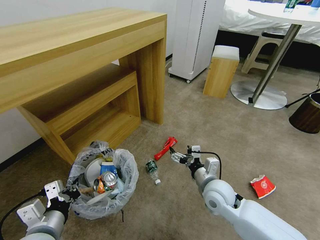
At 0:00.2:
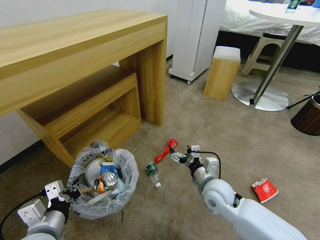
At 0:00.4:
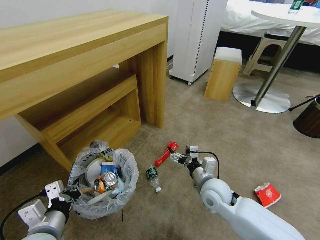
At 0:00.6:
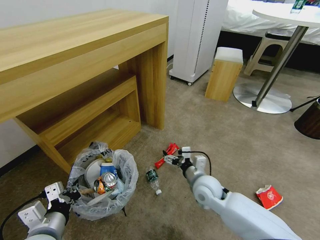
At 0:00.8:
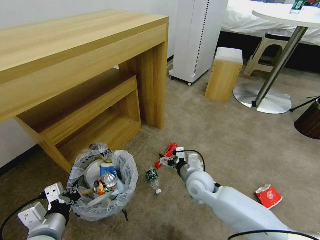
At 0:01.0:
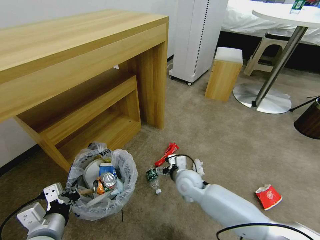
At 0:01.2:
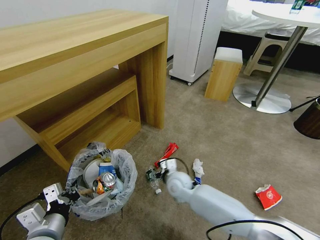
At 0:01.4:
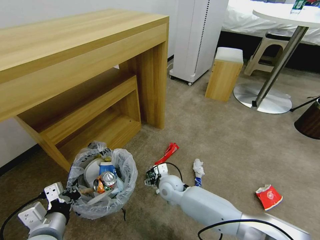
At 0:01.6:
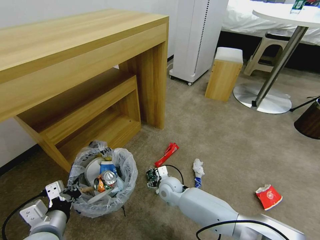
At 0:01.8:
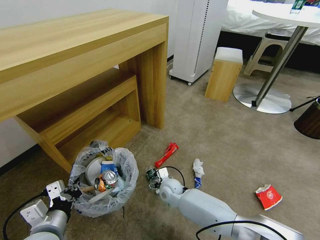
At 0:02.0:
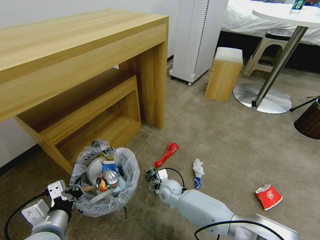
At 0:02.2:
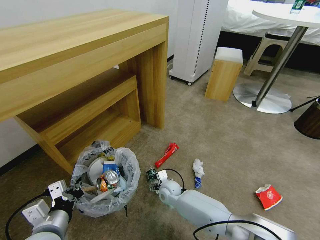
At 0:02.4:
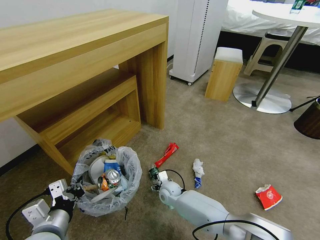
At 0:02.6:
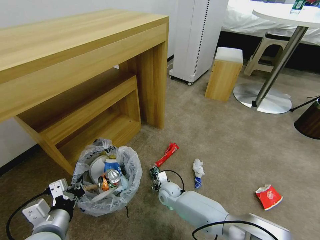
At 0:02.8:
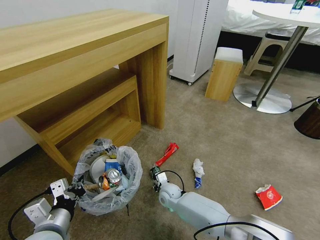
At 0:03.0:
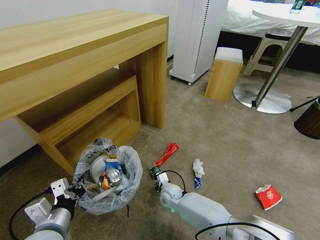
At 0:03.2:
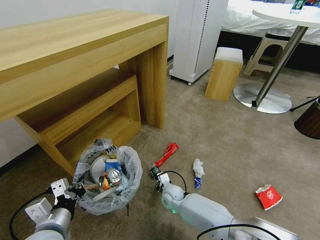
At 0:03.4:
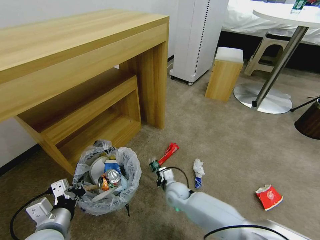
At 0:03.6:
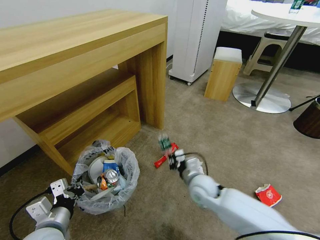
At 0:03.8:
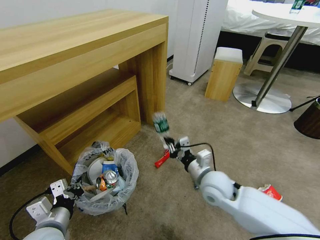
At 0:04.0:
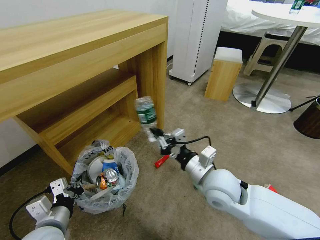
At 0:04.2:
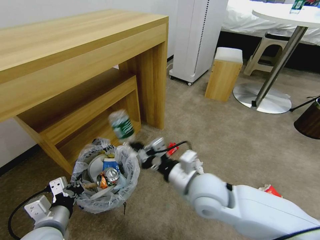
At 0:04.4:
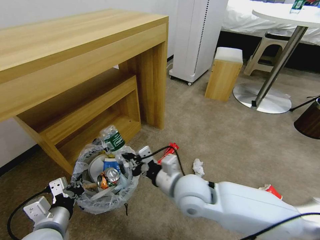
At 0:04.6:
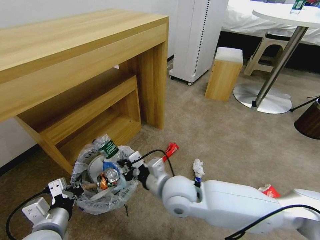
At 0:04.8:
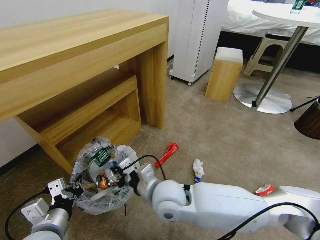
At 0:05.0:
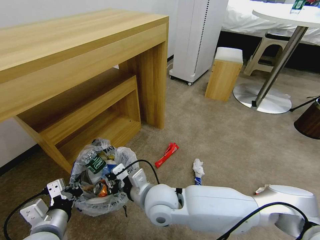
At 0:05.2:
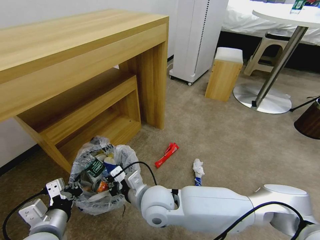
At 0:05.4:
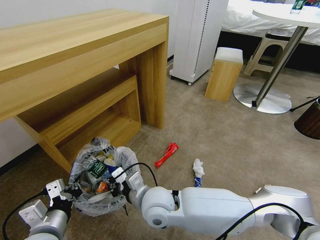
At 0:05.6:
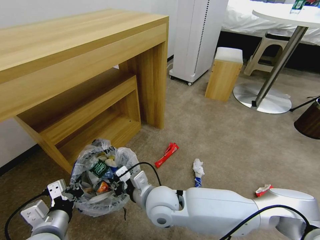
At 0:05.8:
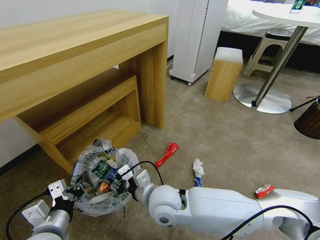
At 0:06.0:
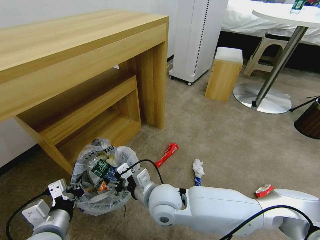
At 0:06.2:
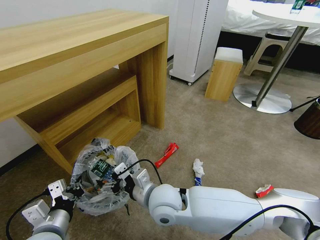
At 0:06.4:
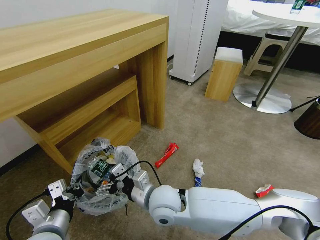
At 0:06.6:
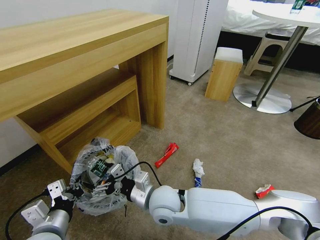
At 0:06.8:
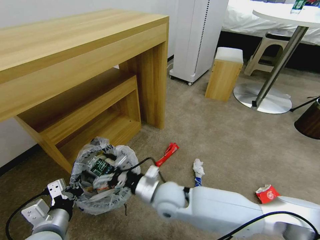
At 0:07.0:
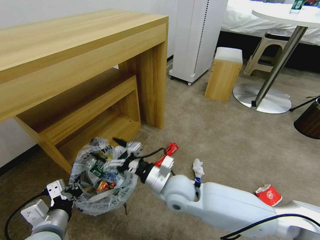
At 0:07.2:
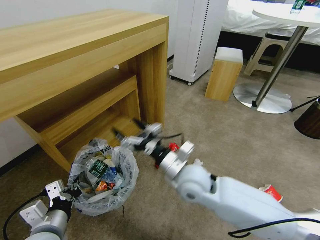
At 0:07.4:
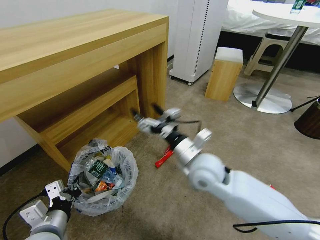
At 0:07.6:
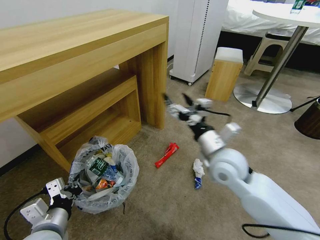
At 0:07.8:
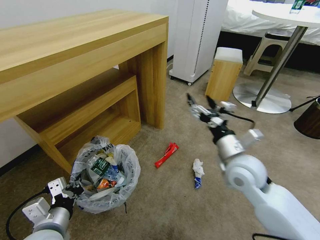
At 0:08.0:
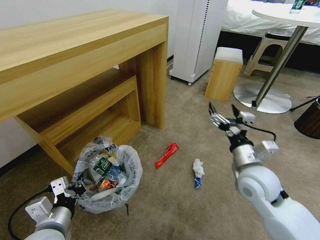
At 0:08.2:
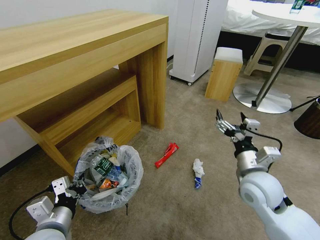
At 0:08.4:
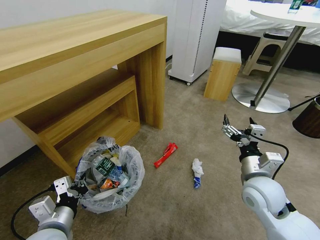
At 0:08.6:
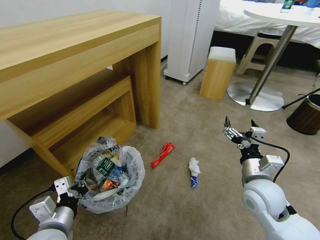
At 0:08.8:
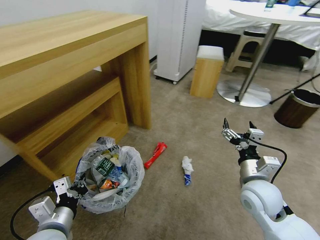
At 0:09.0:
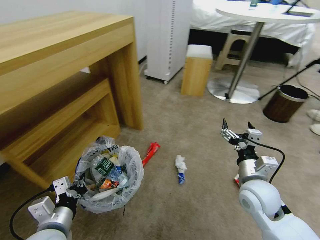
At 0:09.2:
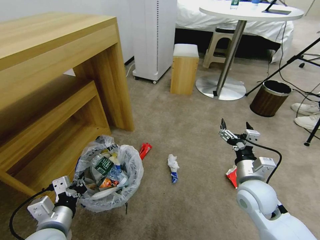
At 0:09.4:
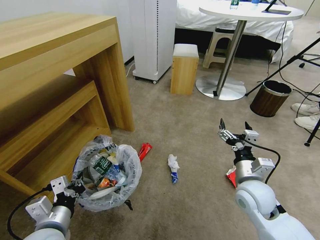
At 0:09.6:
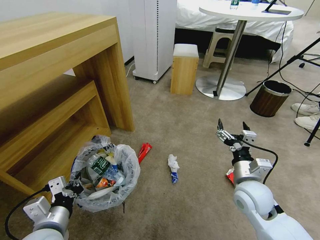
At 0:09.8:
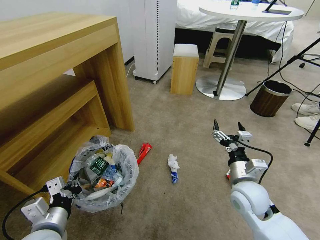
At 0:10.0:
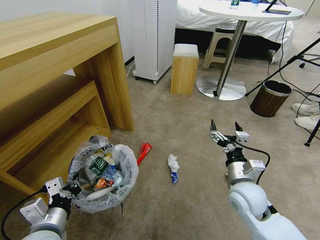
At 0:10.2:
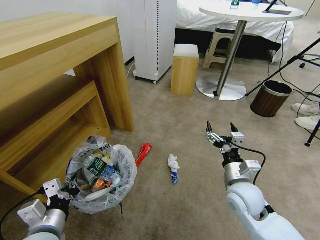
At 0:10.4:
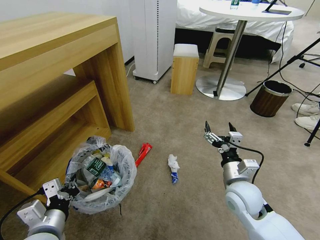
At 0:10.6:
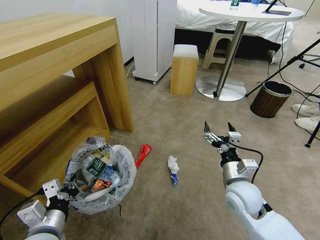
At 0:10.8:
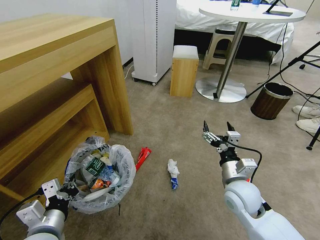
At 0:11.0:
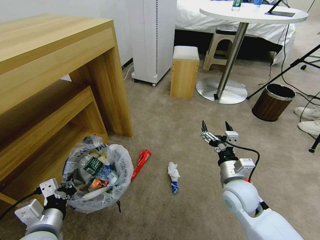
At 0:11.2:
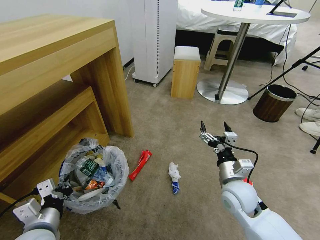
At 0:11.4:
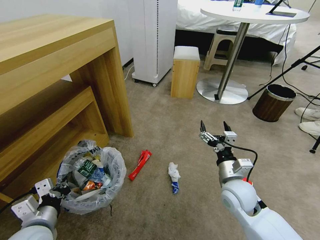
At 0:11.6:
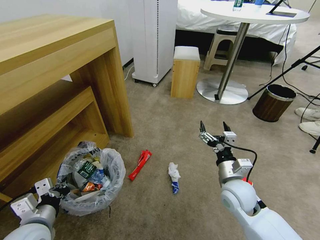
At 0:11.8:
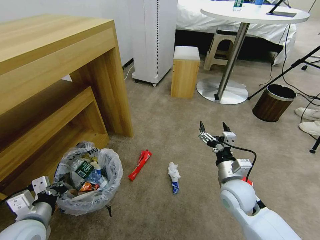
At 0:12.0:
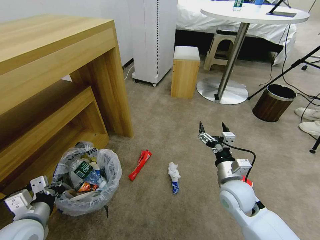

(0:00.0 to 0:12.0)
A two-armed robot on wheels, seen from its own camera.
Task of the whole recording: Pick up the trash bin and place the garbage on the floor into it.
0:00.0 - 0:01.6: The right gripper heads to the left, downward and forward, covering about 20 cm.
0:01.6 - 0:03.0: The right gripper travels downward by about 5 cm, and closes up.
0:03.0 - 0:04.4: The right gripper is displaced upward by approximately 25 cm.
0:04.4 - 0:06.0: The right gripper goes approximately 10 cm to the left, and opens.
0:06.0 - 0:07.6: The right gripper shifts roughly 20 cm to the right, upward and forward.
0:07.6 - 0:09.0: The right gripper goes roughly 15 cm to the right, downward and backward.
0:10.4 - 0:12.0: The left gripper heads to the left, covering approximately 5 cm.

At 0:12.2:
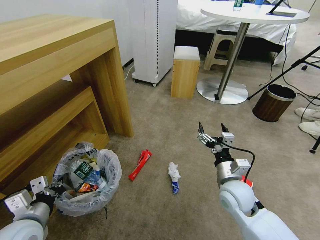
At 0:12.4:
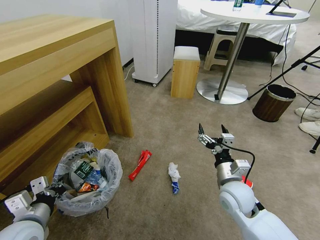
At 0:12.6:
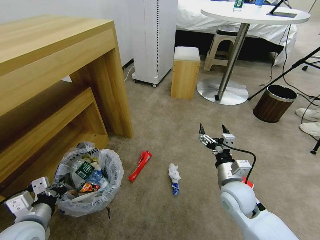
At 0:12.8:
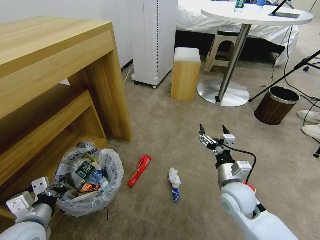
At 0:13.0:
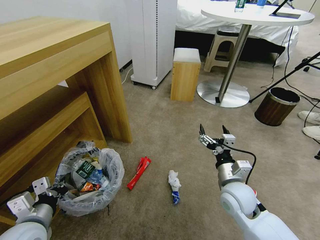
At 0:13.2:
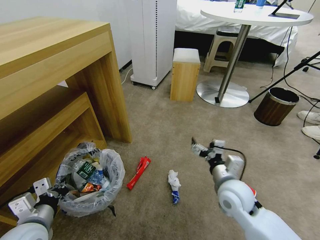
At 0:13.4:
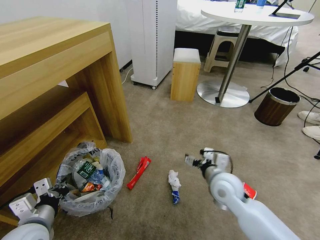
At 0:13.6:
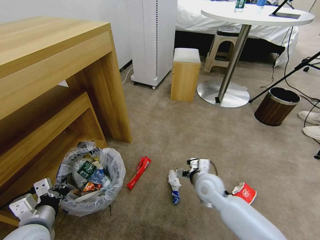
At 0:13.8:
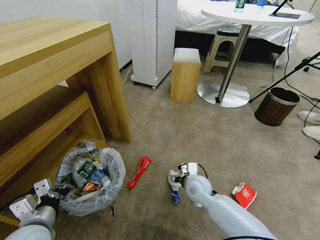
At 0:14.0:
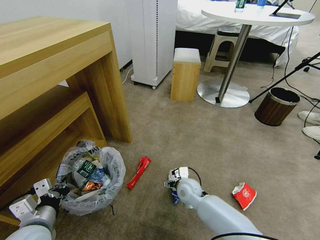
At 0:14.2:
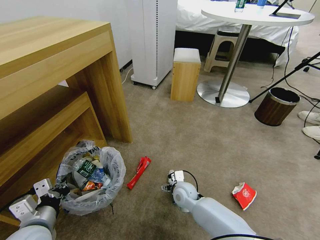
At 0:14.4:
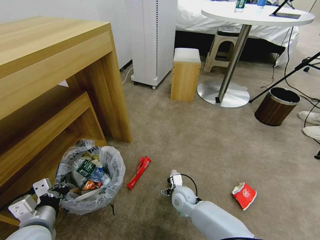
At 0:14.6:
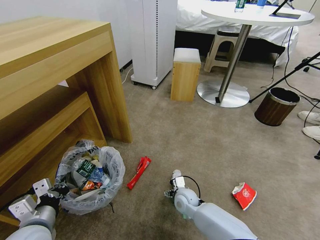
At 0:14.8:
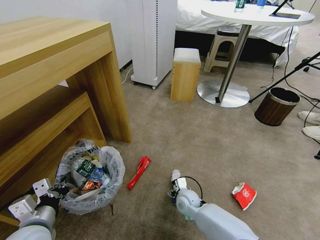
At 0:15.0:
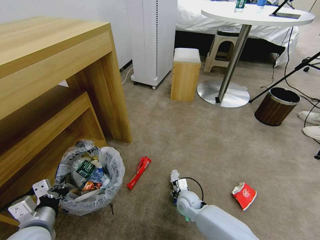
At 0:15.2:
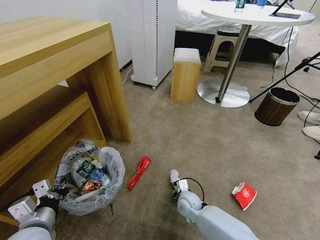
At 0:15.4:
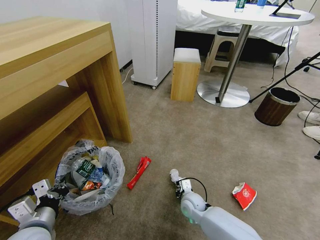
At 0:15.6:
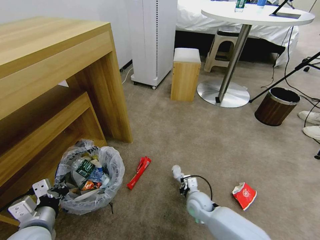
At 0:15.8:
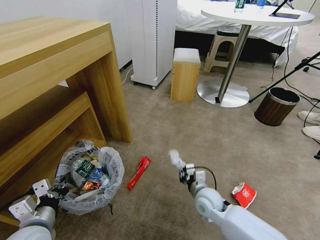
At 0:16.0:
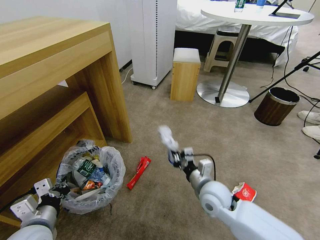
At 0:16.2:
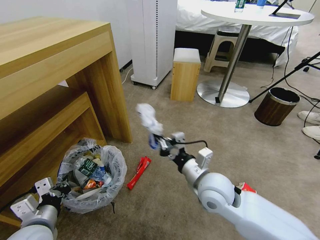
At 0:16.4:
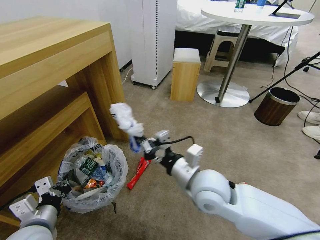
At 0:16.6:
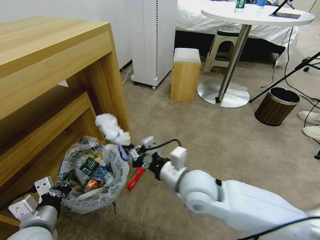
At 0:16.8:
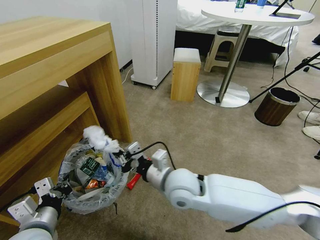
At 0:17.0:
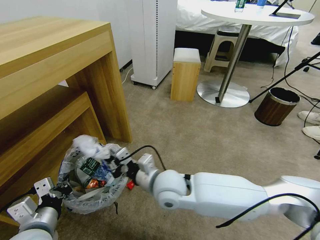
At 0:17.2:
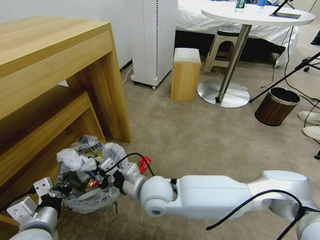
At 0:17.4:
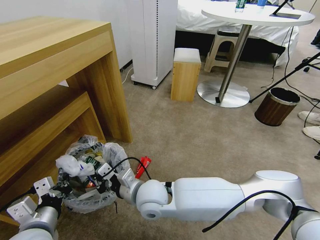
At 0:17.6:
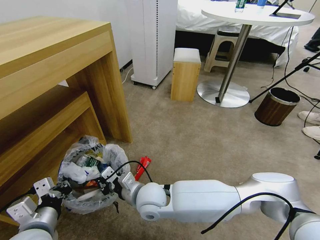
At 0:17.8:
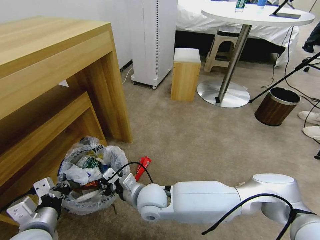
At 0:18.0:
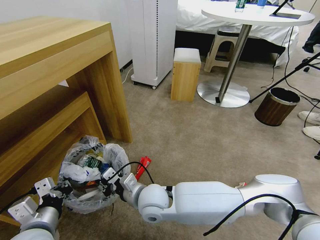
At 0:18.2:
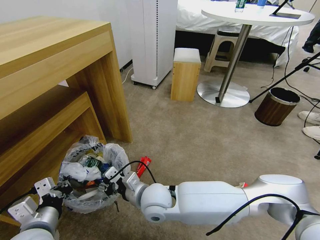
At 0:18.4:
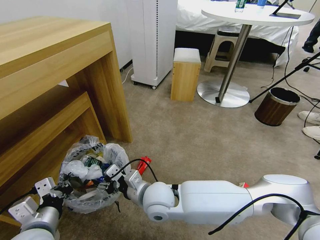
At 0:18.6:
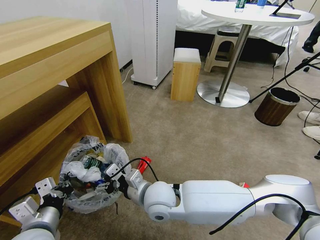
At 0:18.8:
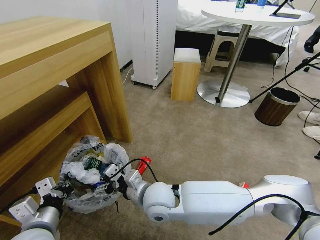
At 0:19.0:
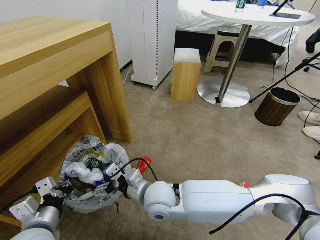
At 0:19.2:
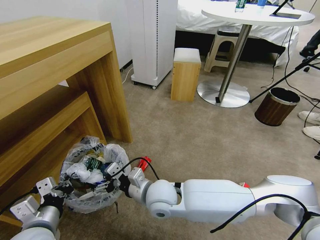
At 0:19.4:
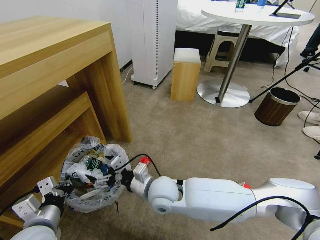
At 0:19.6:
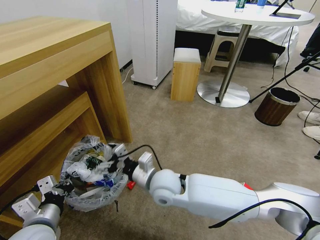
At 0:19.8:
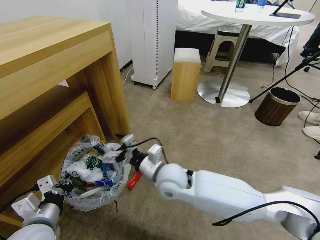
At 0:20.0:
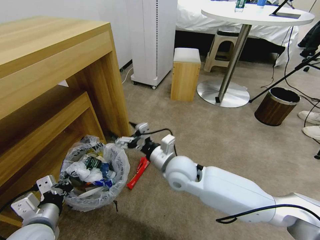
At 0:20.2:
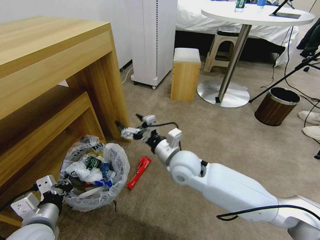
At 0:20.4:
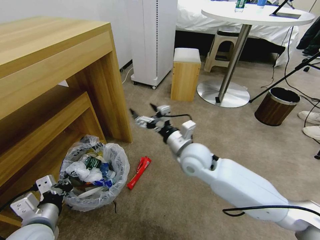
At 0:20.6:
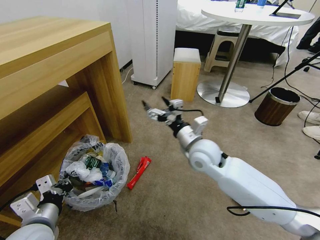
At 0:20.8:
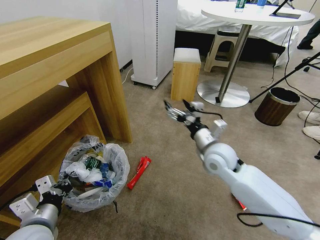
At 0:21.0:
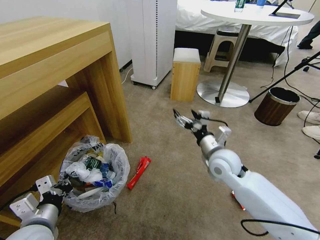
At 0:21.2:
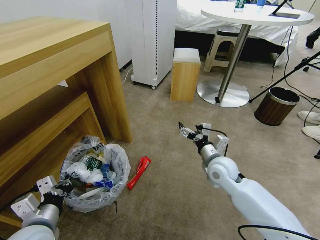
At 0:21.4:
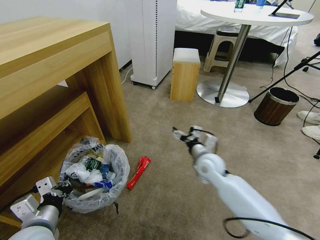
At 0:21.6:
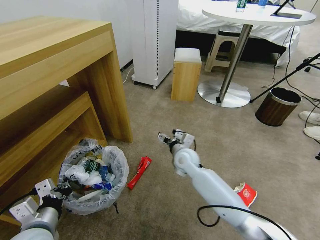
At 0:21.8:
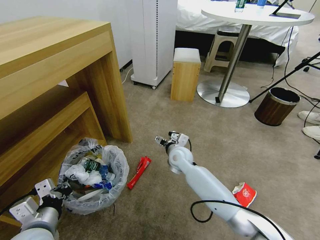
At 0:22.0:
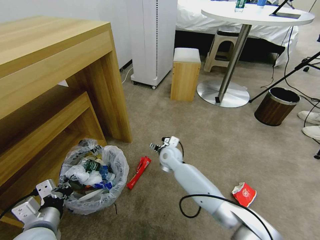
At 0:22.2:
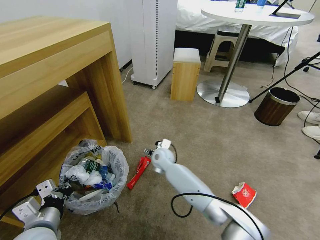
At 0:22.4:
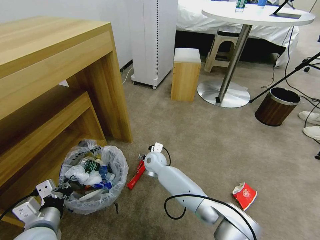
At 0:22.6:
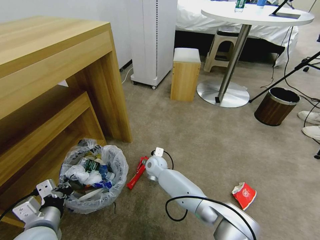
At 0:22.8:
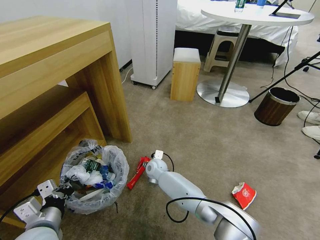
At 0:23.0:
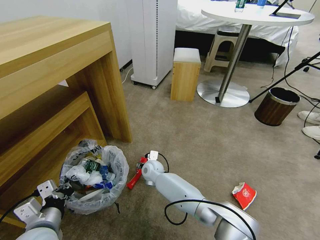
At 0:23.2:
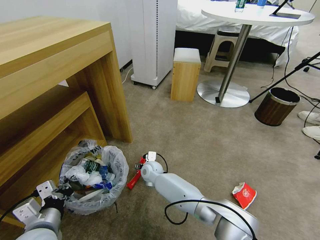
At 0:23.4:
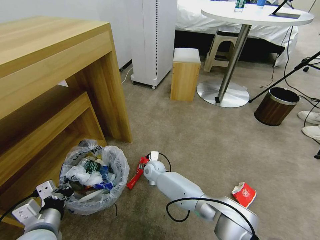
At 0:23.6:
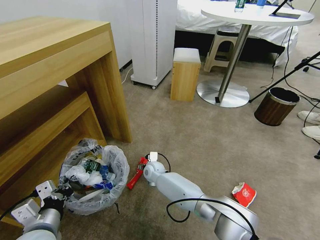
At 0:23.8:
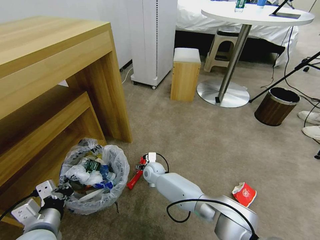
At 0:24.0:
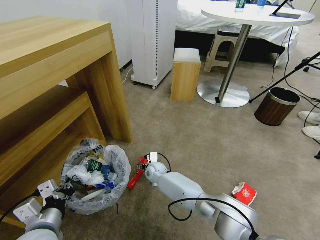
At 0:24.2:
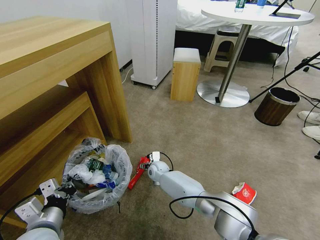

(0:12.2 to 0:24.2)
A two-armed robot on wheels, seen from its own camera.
Task of the whole recording: Pick up the trash bin and place the garbage on the floor into it.
0:12.2 - 0:13.8: The right gripper goes roughly 15 cm to the left, downward and forward.
0:13.8 - 0:15.2: The right gripper is displaced downward by some 10 cm, and closes.
0:15.2 - 0:16.6: The right gripper travels upward by some 30 cm, and closes.
0:16.6 - 0:18.2: The right gripper is displaced to the left and downward by roughly 15 cm, and opens its fingers.
0:18.2 - 0:19.8: The right gripper heads to the right and forward, covering some 5 cm, and opens its fingers.
0:19.8 - 0:21.2: The right gripper travels to the right by roughly 15 cm.
0:21.2 - 0:22.6: The right gripper is displaced to the left, downward and forward by about 30 cm.
0:22.6 - 0:24.2: The right gripper moves downward, about 5 cm.
